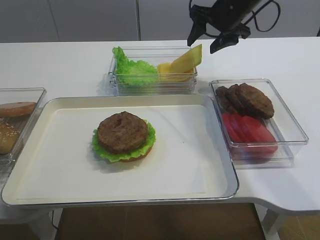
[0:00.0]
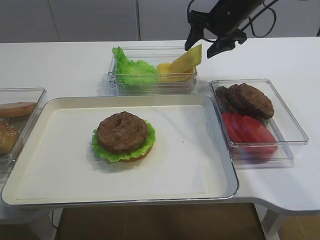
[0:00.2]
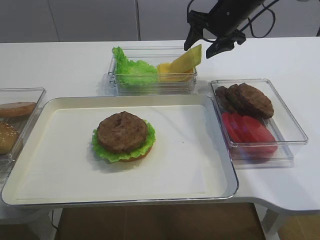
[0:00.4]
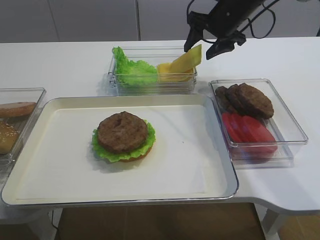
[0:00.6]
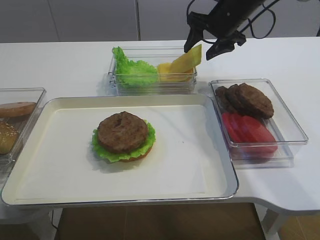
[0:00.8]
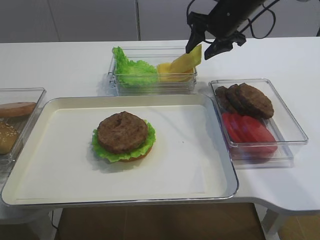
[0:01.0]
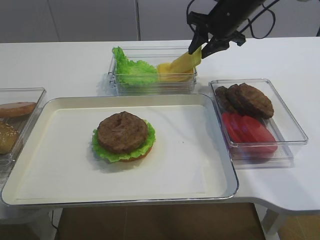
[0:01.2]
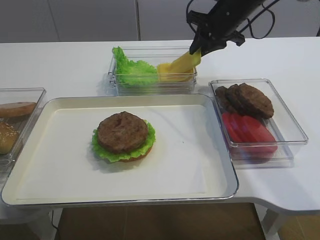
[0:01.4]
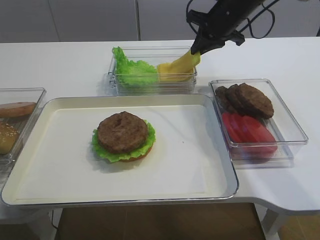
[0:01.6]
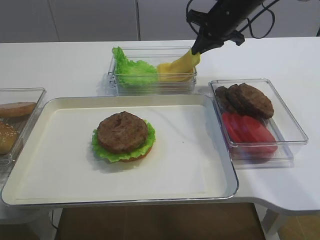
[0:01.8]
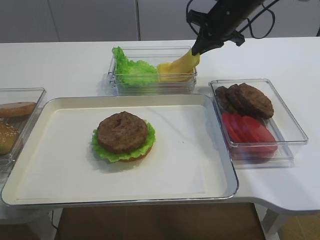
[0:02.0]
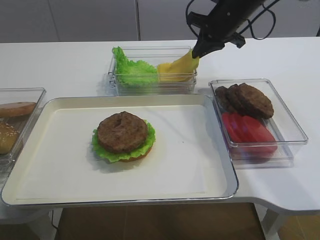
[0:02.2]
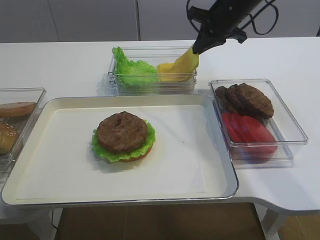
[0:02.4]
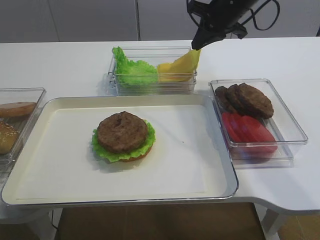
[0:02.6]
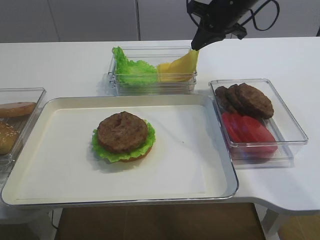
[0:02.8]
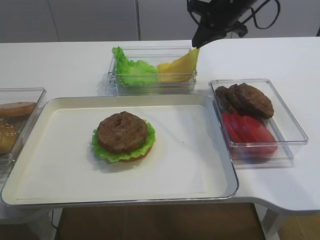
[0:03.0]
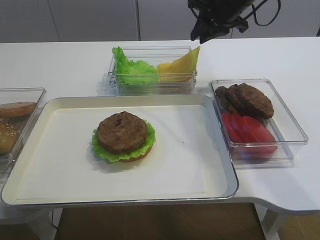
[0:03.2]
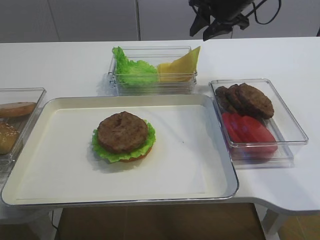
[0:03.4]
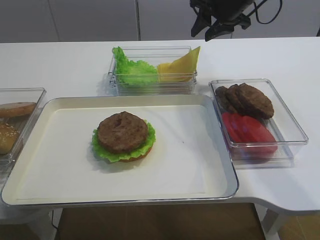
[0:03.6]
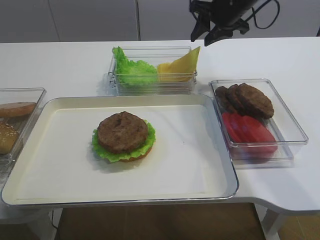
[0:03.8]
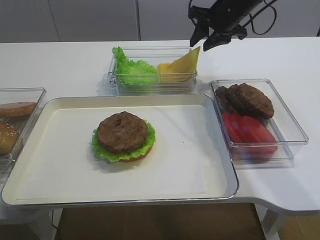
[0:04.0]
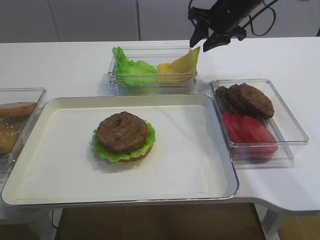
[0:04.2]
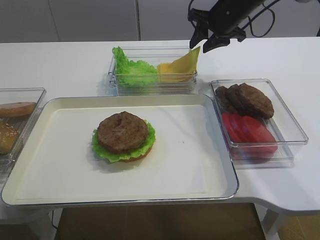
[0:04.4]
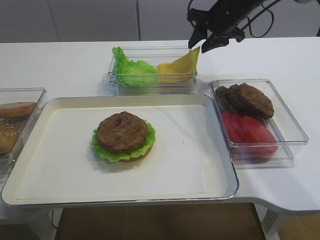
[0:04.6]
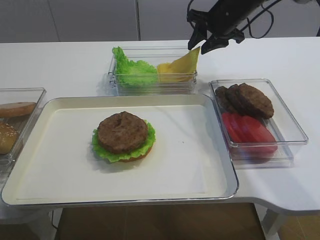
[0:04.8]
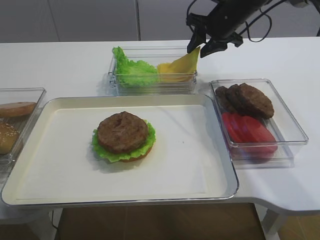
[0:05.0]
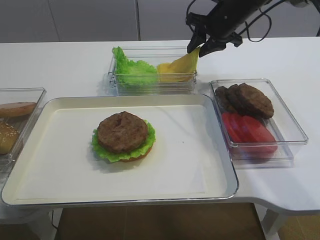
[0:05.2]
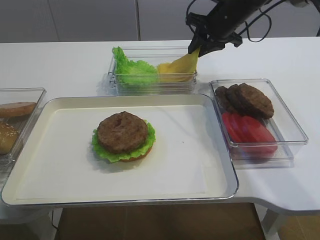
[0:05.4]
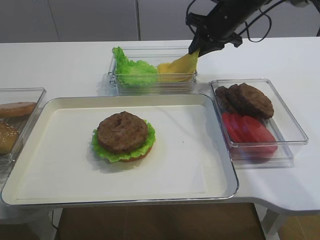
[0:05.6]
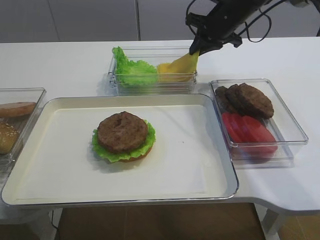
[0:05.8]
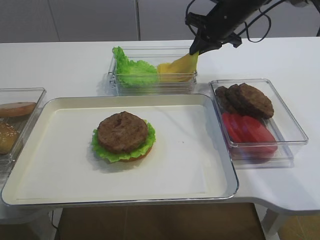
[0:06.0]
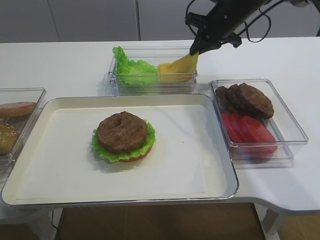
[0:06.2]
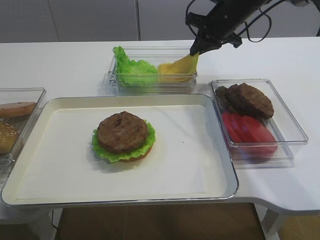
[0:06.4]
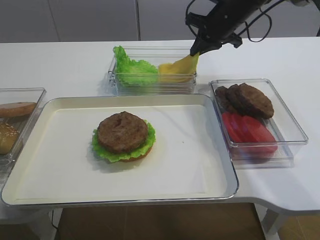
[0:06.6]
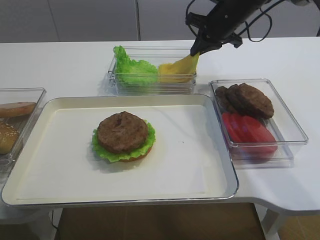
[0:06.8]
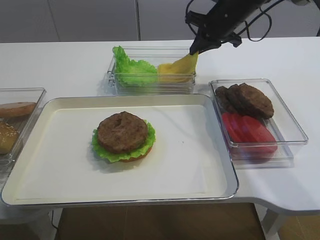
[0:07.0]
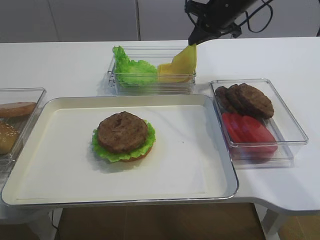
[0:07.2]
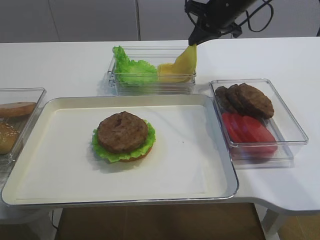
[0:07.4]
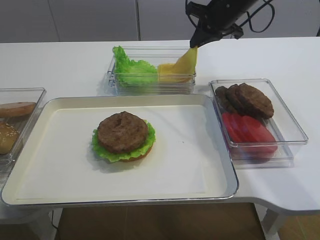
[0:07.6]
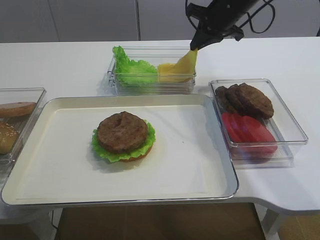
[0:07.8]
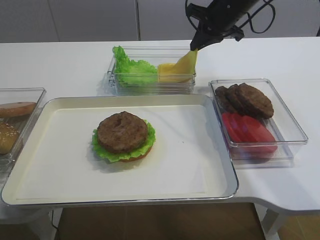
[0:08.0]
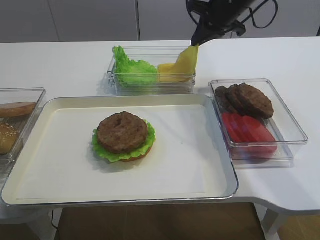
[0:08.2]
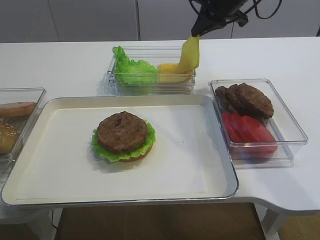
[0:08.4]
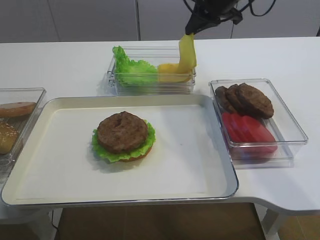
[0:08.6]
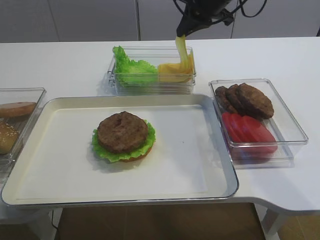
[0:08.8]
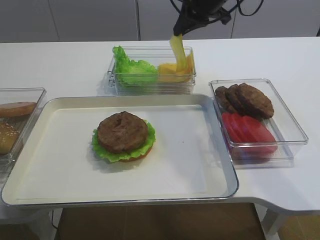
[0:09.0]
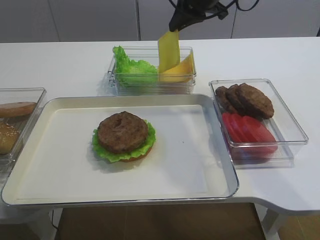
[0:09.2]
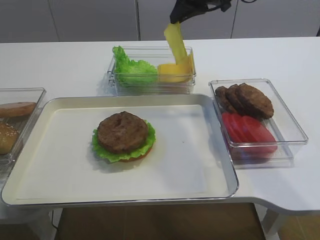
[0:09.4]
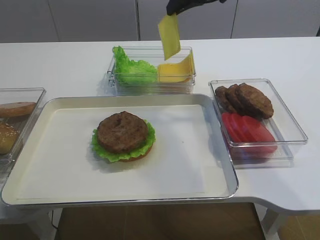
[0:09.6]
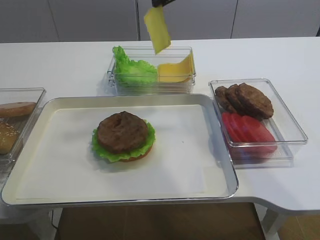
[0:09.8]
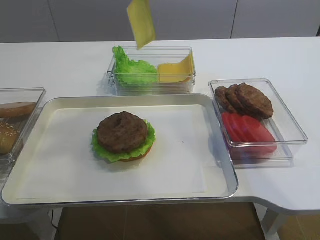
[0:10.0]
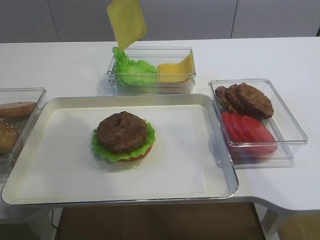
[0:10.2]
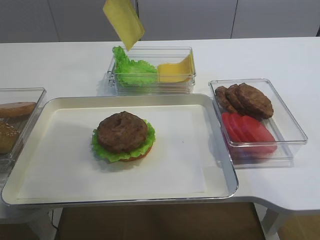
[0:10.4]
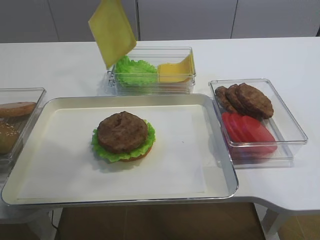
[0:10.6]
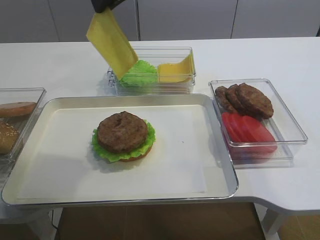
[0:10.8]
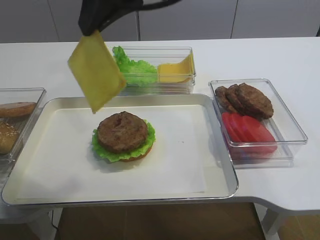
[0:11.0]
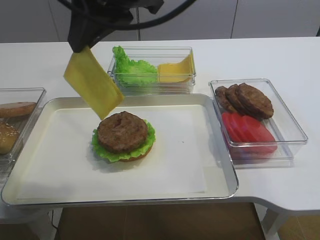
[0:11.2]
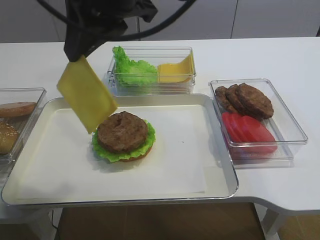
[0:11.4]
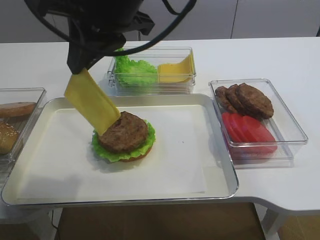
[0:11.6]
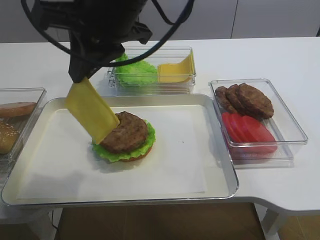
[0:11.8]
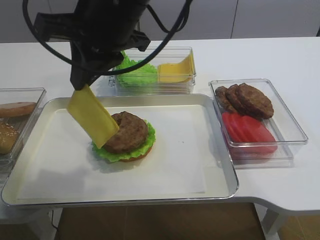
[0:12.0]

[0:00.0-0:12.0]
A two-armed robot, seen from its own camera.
Step, 0:00.0 to 0:08.4: Pick up the cheese slice with the right gripper.
0:00.0 to 0:01.6: The right gripper closes.
0:01.6 to 0:03.0: The grippers move only a little.
0:03.0 to 0:04.4: The right gripper opens.
0:04.4 to 0:06.0: The right gripper closes up.
0:06.0 to 0:07.6: There are only small adjustments of the grippers.
0:07.6 to 0:09.0: The right gripper changes place by roughly 5 cm.
0:09.0 to 0:10.4: The right gripper goes about 20 cm backward, upward and to the left.
0:10.4 to 0:12.0: The right gripper travels backward, downward and to the left by about 10 cm.

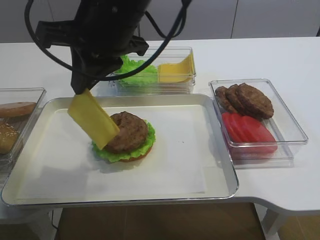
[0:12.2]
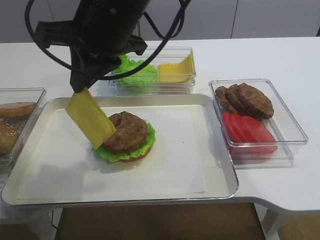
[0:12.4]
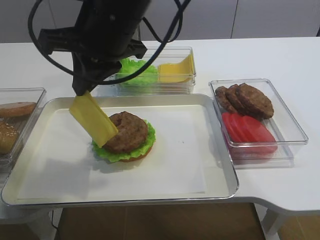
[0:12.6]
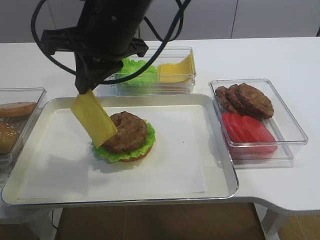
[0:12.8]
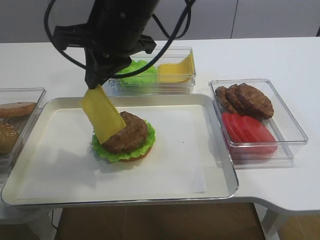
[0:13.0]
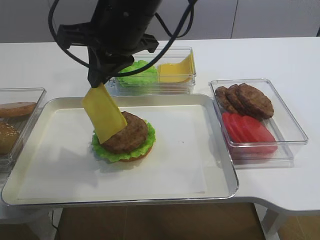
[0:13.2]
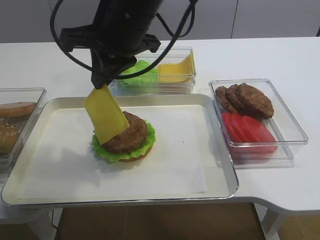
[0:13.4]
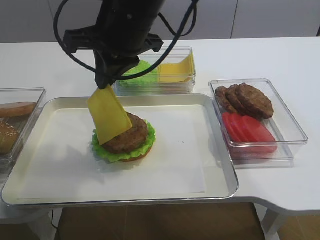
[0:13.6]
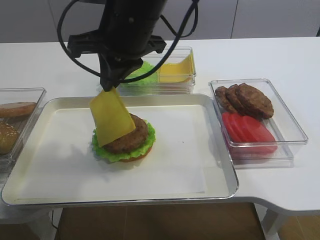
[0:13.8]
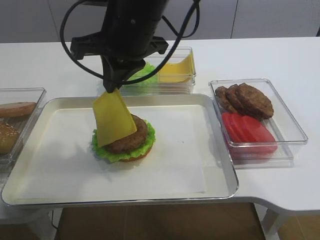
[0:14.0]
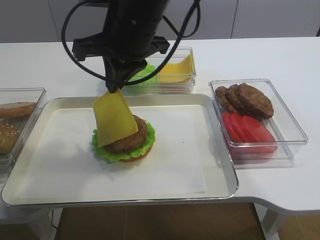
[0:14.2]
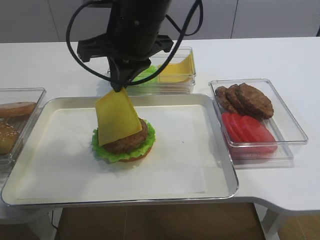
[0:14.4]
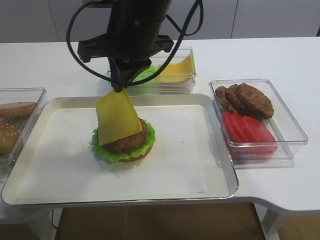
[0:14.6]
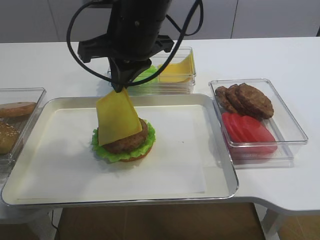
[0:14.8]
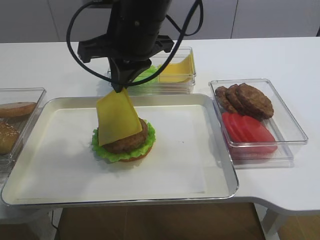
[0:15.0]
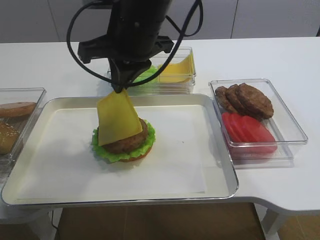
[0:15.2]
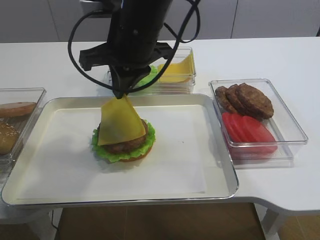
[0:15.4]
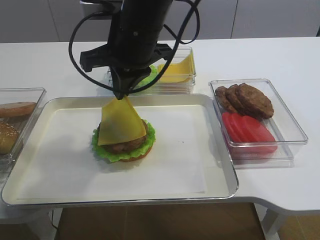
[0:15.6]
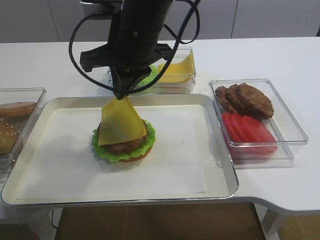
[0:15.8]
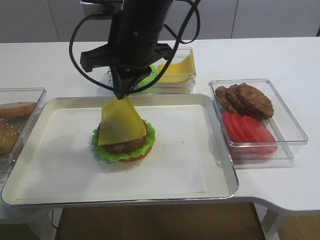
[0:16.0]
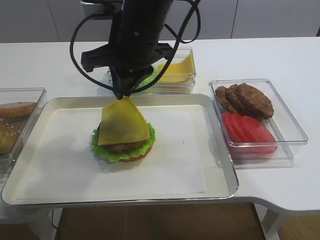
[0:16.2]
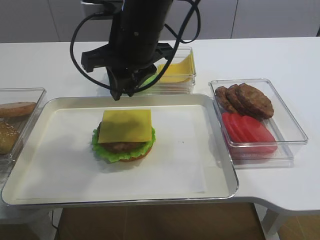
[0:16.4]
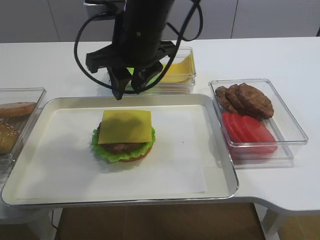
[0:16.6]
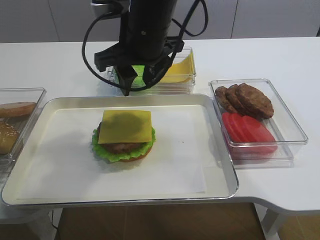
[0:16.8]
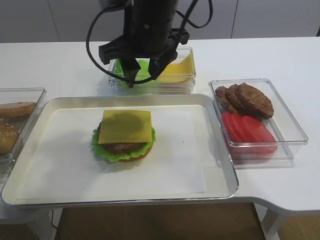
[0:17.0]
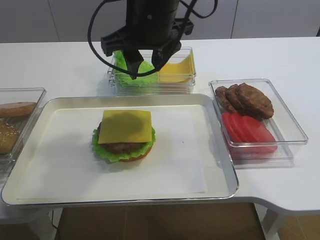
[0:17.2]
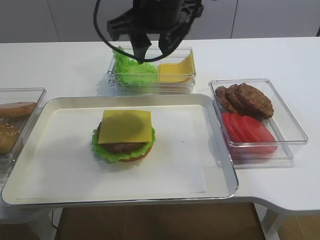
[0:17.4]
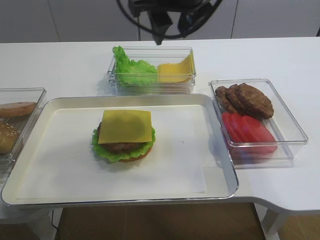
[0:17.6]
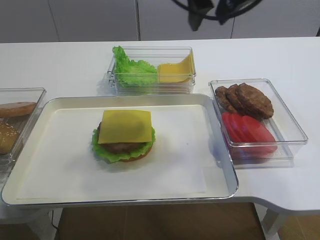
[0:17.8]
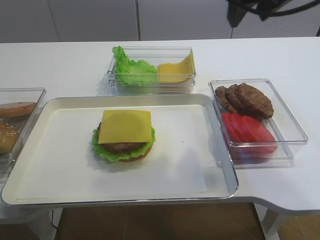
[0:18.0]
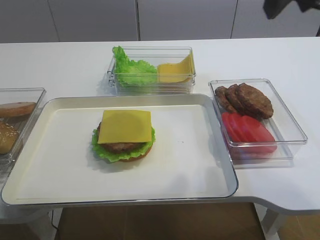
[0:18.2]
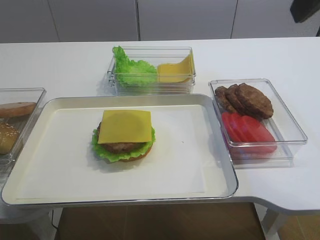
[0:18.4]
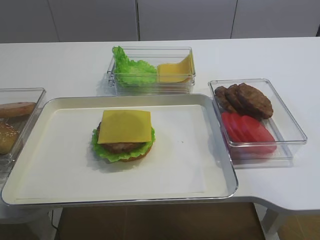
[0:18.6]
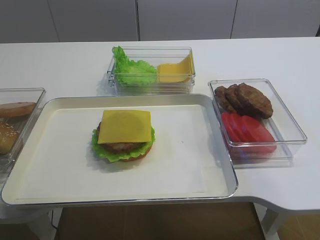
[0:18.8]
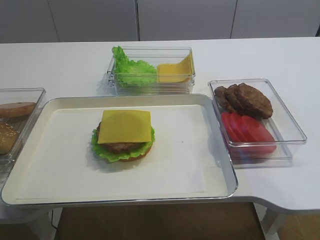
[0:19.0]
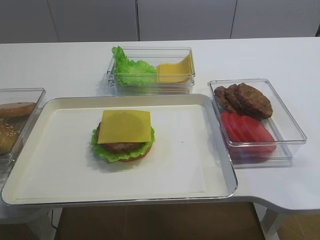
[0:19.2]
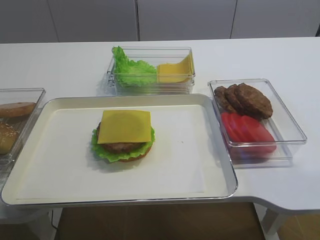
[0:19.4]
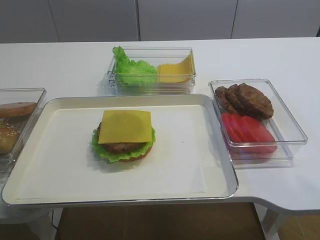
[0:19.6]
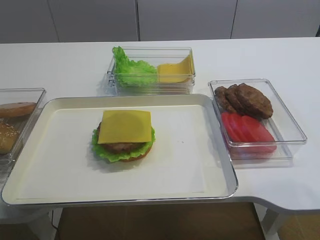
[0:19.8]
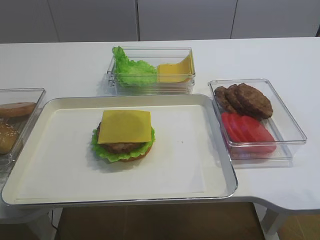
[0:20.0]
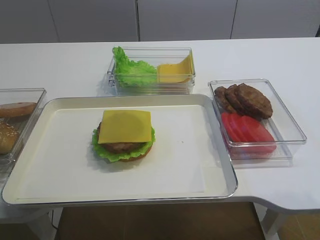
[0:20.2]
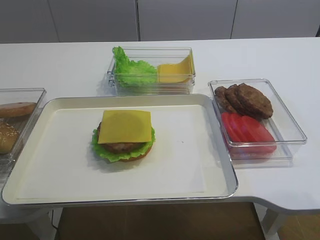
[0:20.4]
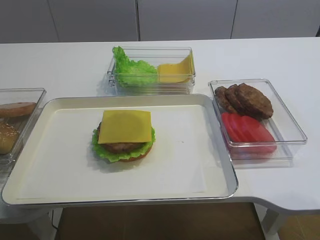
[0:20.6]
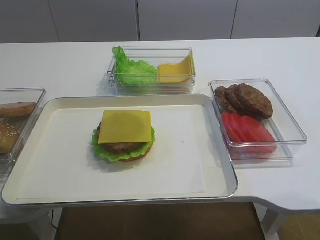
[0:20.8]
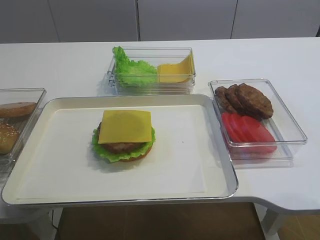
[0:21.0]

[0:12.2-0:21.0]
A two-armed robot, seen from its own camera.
Step, 0:12.2 to 0:16.6: Place the cheese slice on the cutlet with the right gripper.
0:12.2 to 0:15.2: The grippers make only small movements.
0:15.2 to 0:16.6: The right gripper opens.
0:16.6 to 0:18.0: The right gripper shifts about 20 cm to the right and upward.
0:18.0 to 0:19.6: The right gripper goes approximately 30 cm backward and to the right.

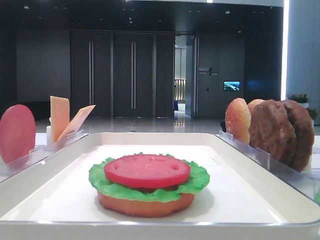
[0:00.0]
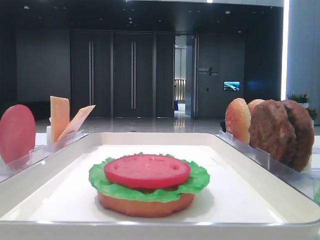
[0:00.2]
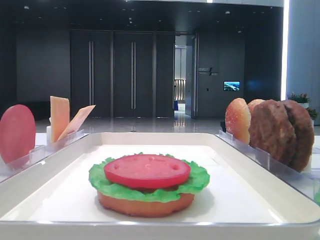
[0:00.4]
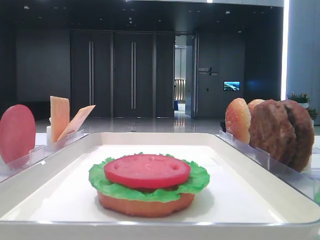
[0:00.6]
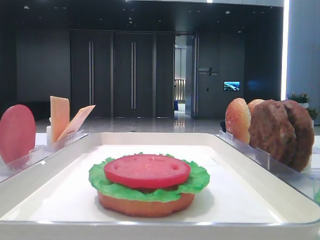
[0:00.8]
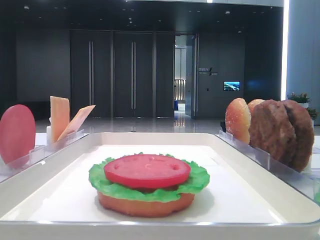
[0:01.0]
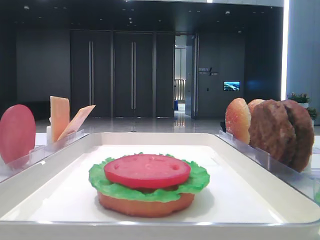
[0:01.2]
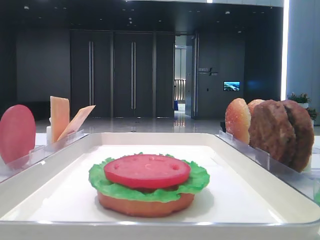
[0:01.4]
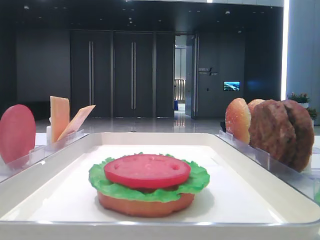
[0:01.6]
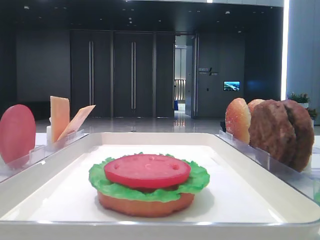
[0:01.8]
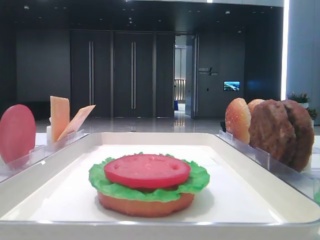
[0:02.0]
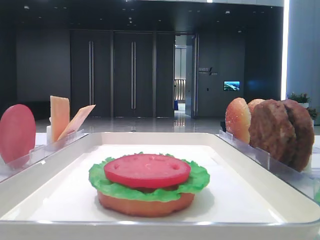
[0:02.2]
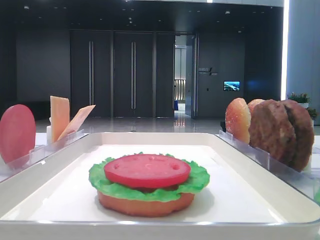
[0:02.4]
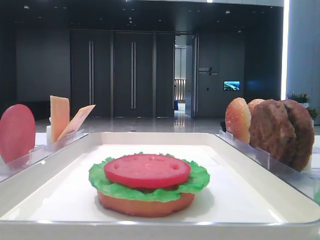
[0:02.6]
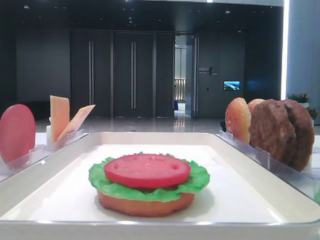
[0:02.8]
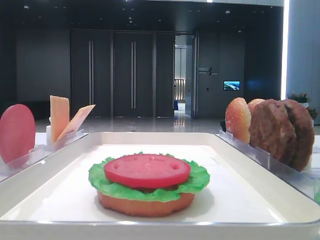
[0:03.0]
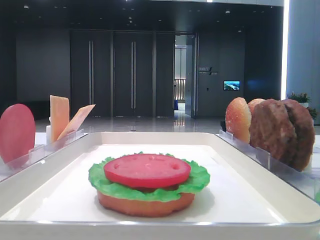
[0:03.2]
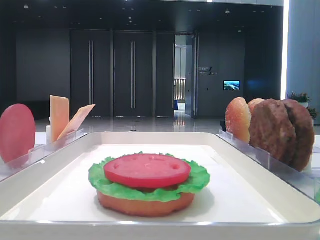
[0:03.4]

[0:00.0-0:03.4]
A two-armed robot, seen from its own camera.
0:01.6 to 0:03.4: The right gripper is displaced forward by about 20 cm.
